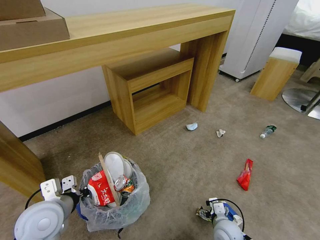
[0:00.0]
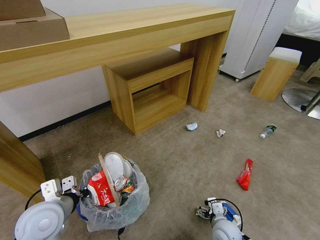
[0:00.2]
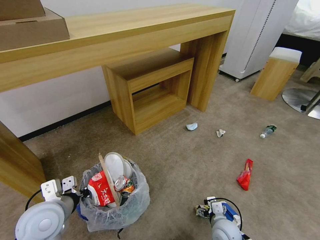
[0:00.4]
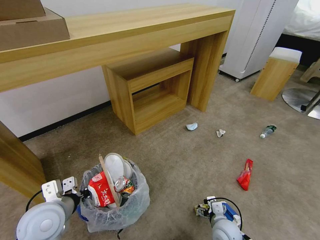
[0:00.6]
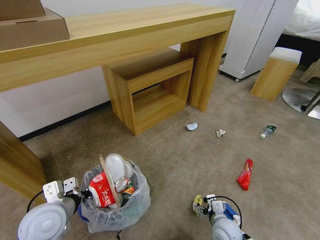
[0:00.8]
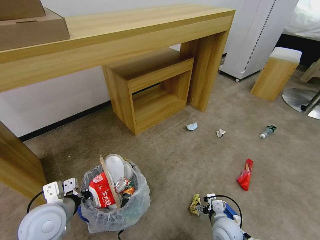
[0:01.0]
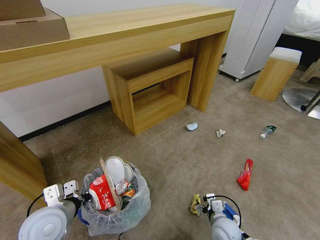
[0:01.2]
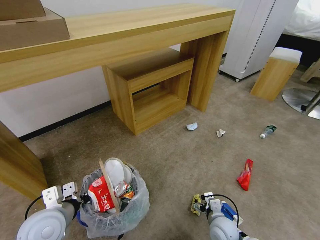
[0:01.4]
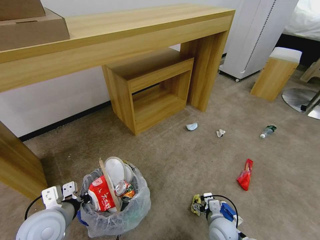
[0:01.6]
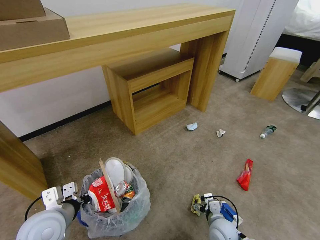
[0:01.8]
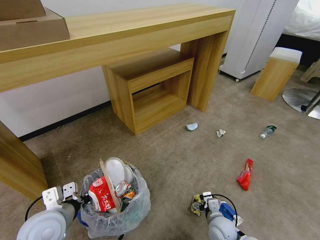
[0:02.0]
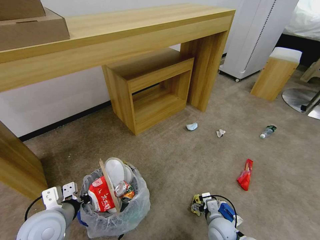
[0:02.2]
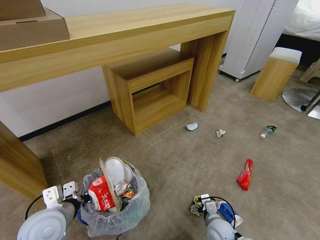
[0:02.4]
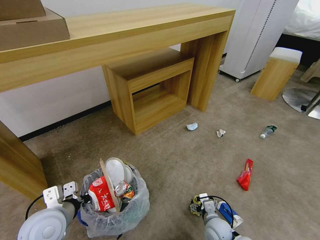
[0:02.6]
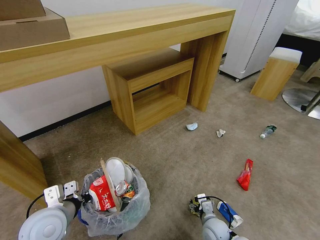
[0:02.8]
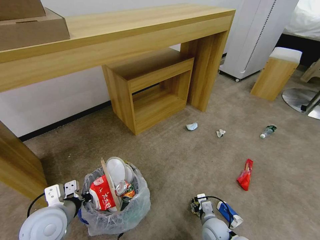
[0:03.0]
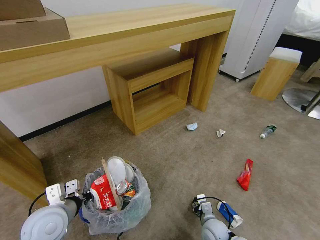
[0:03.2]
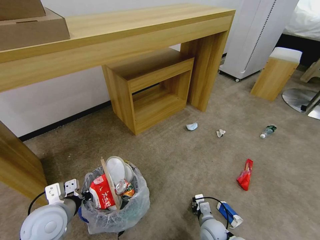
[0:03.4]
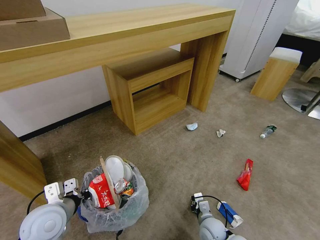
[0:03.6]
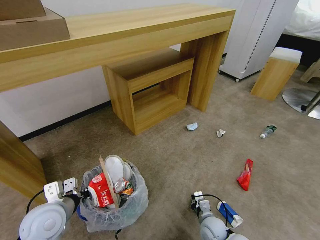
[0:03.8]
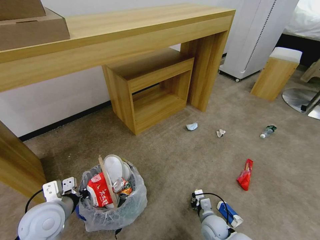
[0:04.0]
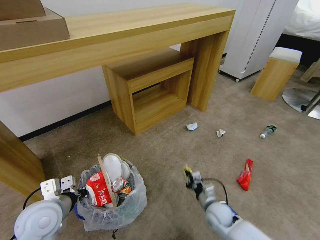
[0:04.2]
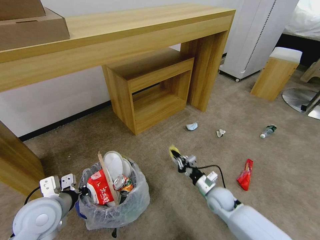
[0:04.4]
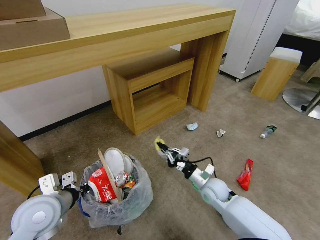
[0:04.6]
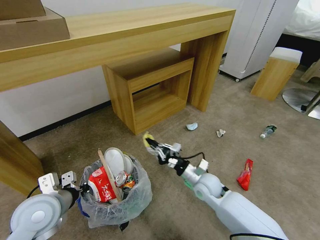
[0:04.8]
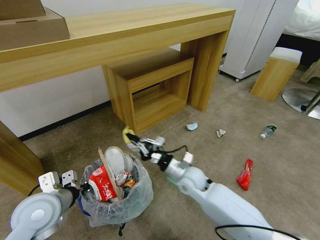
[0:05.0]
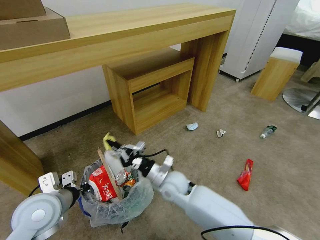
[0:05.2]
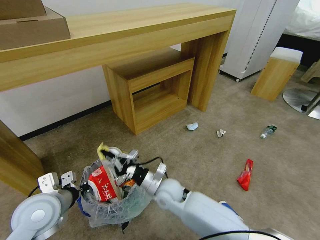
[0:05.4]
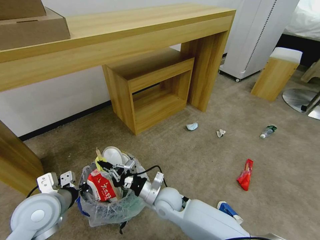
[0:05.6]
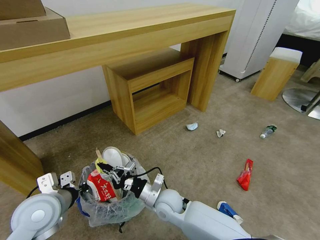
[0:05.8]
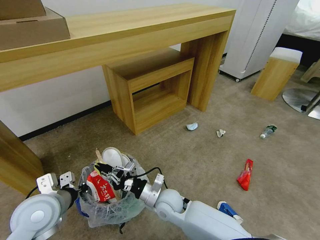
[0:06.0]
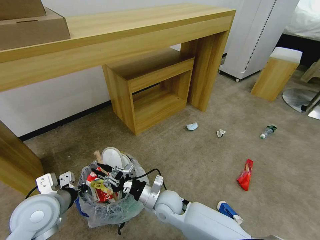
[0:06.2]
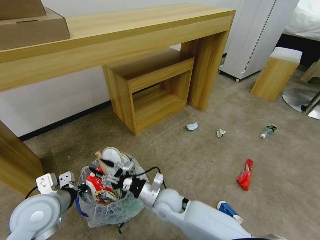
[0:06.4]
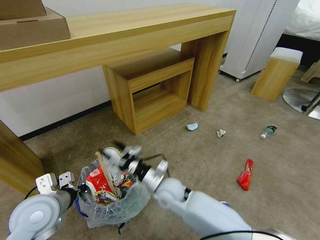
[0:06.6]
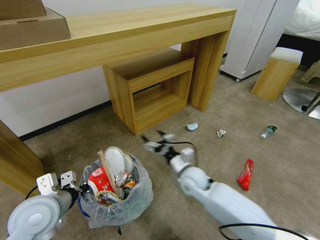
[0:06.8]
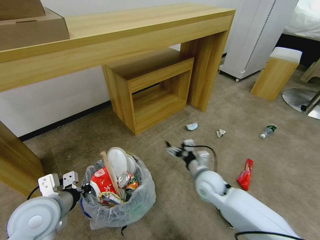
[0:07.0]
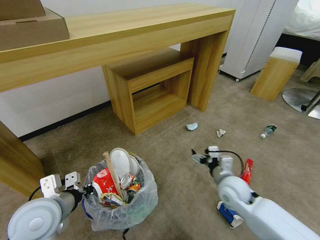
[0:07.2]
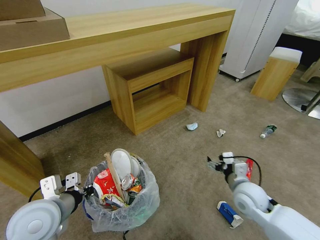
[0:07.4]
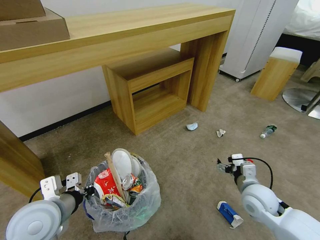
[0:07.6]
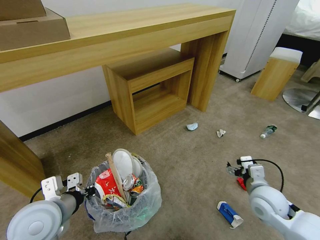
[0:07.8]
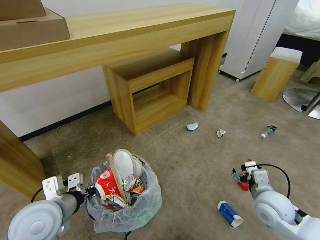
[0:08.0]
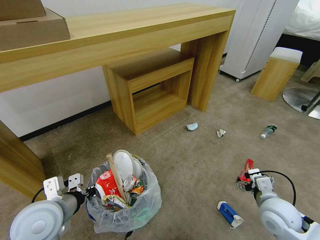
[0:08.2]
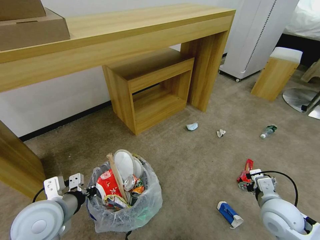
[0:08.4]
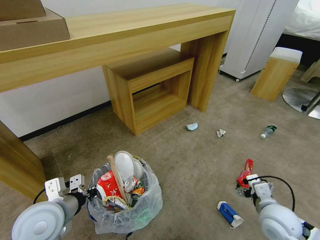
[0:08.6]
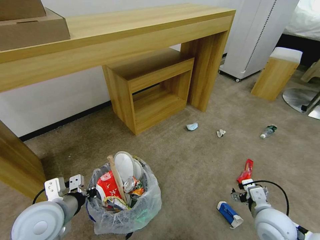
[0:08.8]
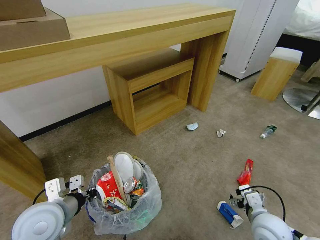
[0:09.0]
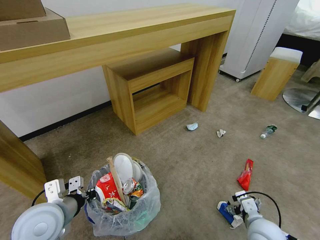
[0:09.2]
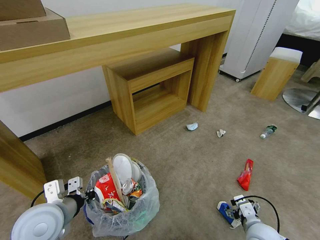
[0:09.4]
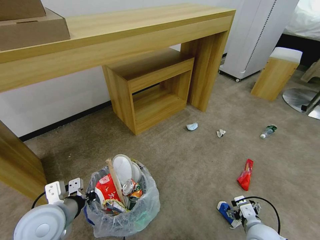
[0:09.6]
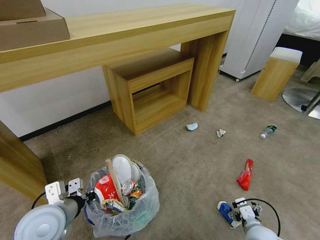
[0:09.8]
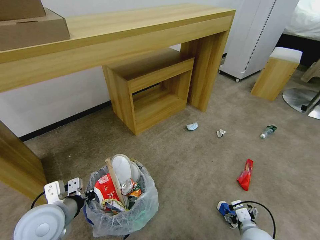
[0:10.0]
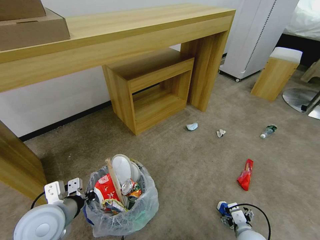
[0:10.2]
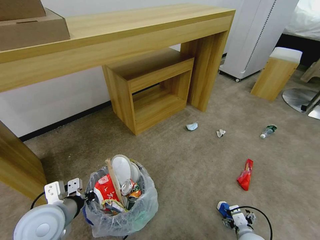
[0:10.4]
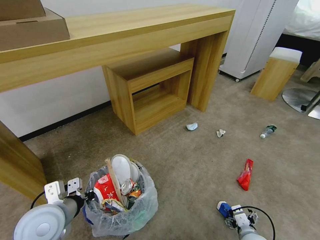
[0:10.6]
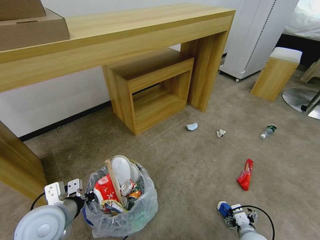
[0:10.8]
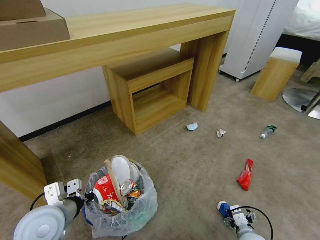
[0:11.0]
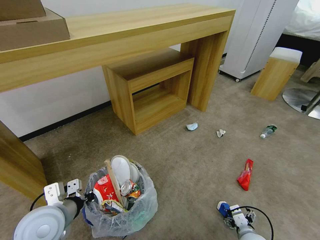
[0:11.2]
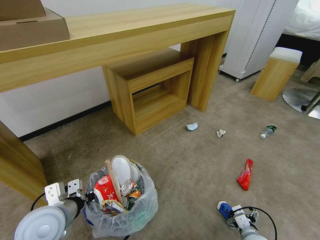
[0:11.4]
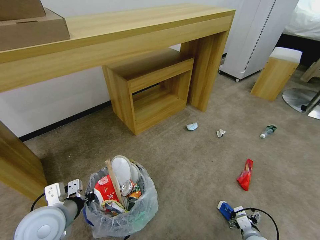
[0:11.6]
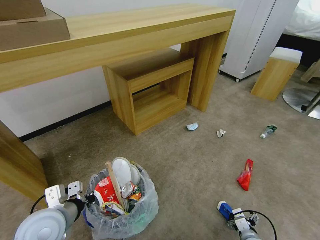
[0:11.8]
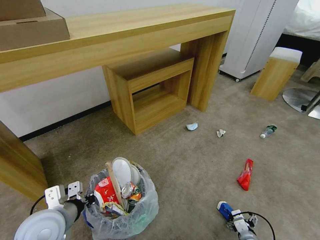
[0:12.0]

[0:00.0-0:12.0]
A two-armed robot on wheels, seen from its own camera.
Task of the whole recording: Pick up the trash bin and place the garbage on the floor into it.
0:00.0 to 0:01.6: The grippers move only a little.
0:01.6 to 0:03.0: The right gripper closes its fingers.
0:03.0 to 0:04.4: The right gripper is displaced forward and upward by about 15 cm, and closes up.
0:04.4 to 0:06.0: The right gripper heads to the left, covering approximately 20 cm.
0:06.0 to 0:07.6: The right gripper shifts about 30 cm to the right, and opens its fingers.
0:07.6 to 0:09.0: The right gripper shifts roughly 10 cm backward.
0:09.0 to 0:10.4: The right gripper travels downward by approximately 10 cm.
0:10.4 to 0:12.0: The right gripper travels downward by some 5 cm.

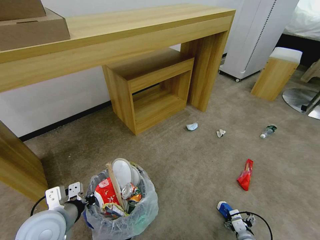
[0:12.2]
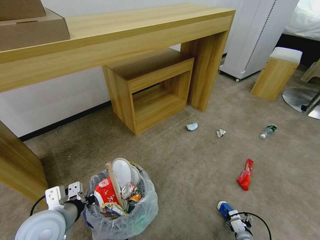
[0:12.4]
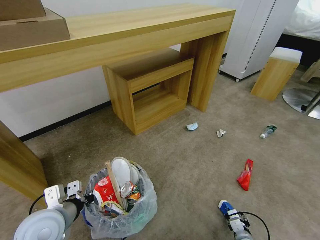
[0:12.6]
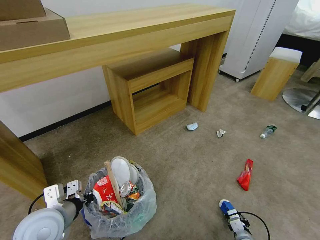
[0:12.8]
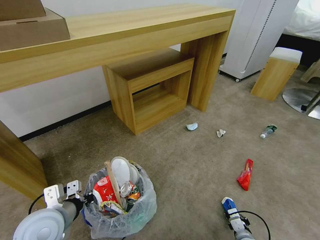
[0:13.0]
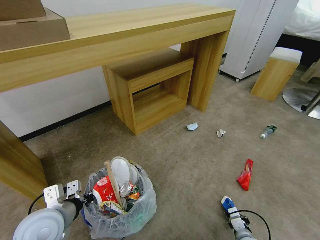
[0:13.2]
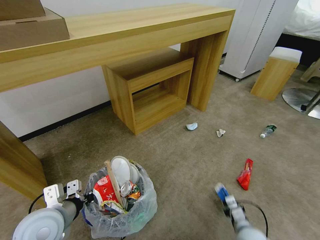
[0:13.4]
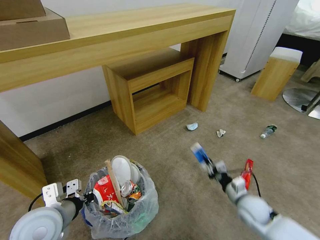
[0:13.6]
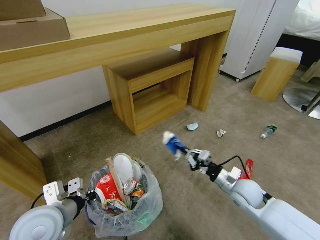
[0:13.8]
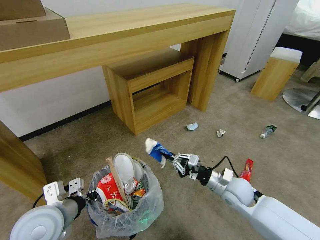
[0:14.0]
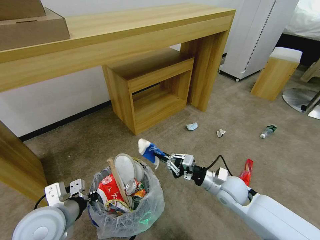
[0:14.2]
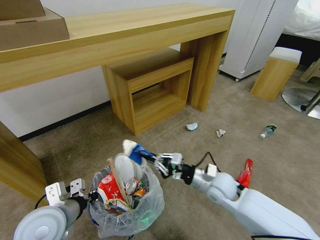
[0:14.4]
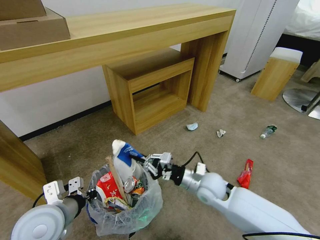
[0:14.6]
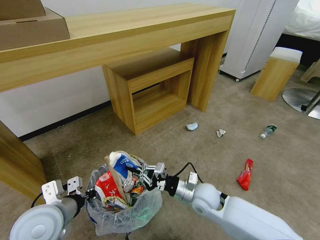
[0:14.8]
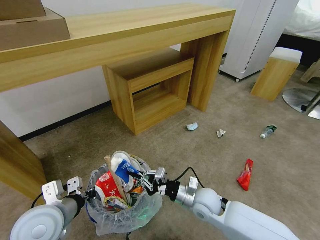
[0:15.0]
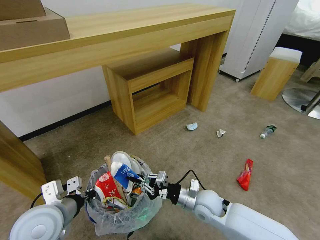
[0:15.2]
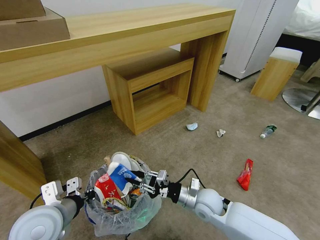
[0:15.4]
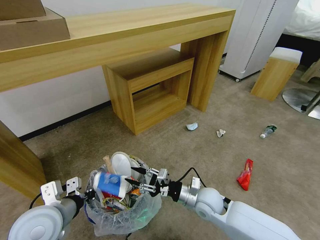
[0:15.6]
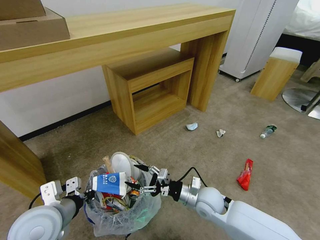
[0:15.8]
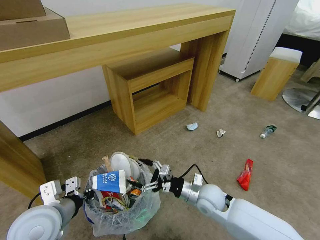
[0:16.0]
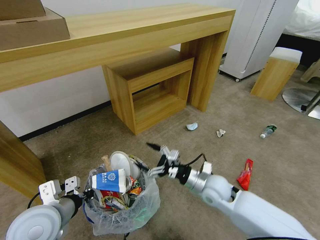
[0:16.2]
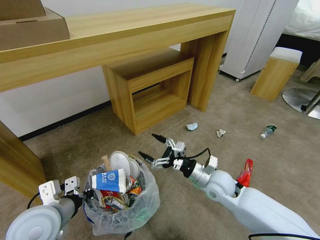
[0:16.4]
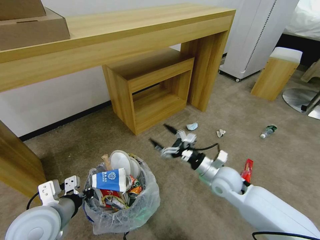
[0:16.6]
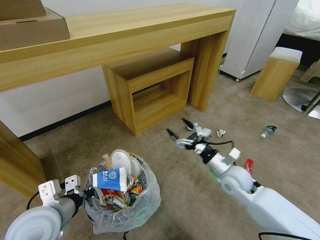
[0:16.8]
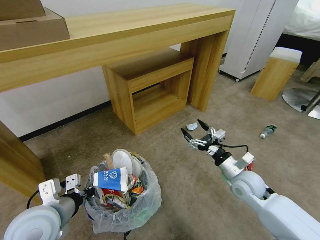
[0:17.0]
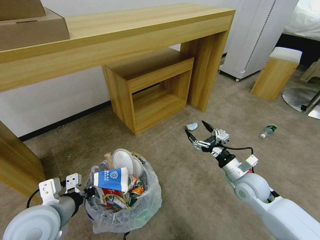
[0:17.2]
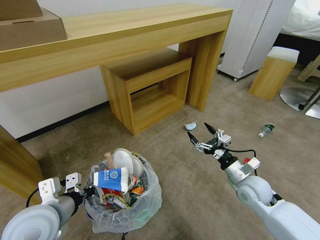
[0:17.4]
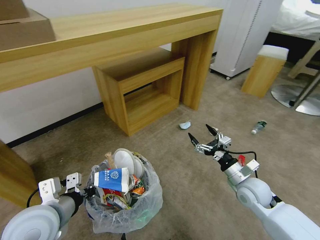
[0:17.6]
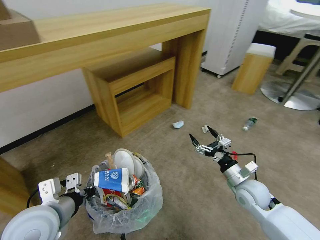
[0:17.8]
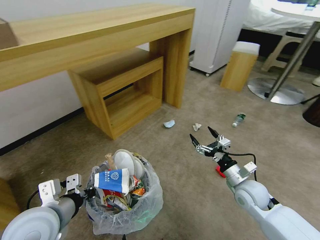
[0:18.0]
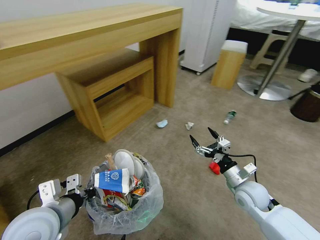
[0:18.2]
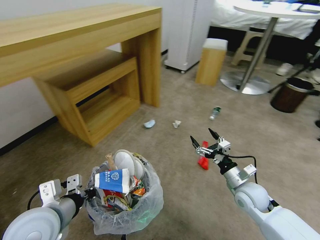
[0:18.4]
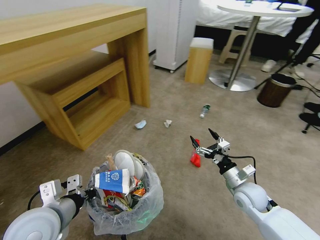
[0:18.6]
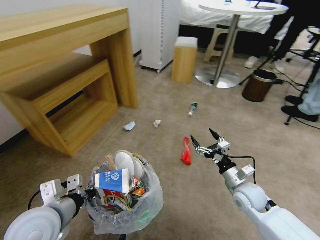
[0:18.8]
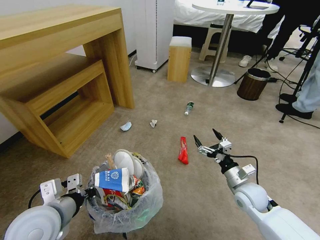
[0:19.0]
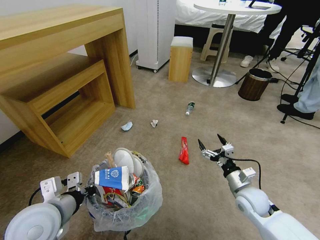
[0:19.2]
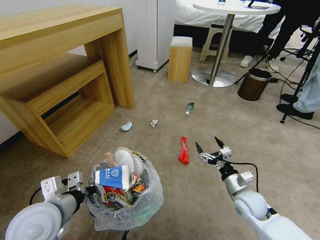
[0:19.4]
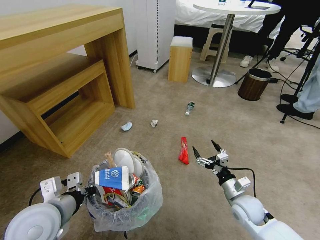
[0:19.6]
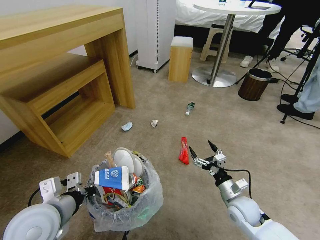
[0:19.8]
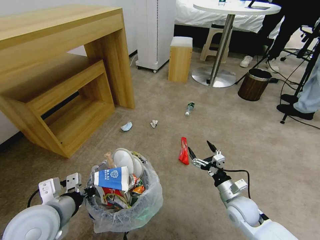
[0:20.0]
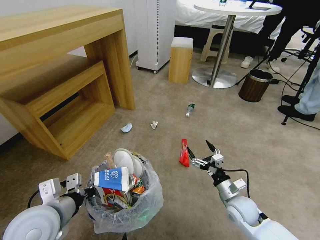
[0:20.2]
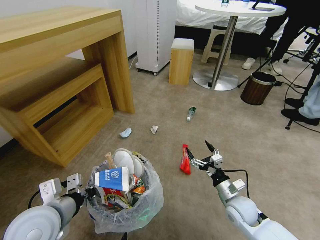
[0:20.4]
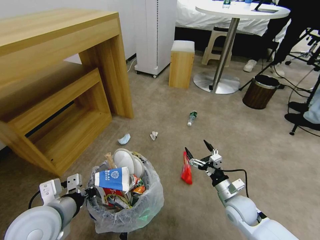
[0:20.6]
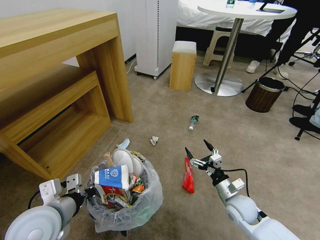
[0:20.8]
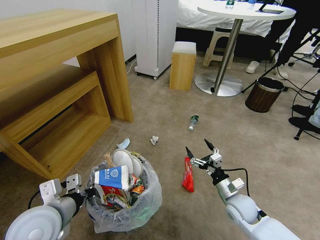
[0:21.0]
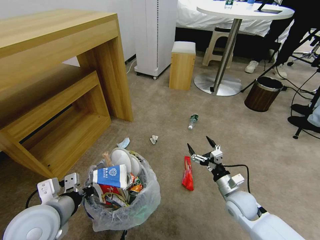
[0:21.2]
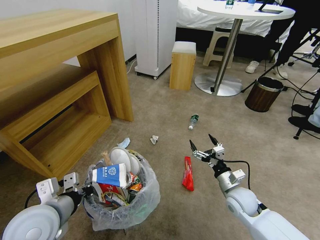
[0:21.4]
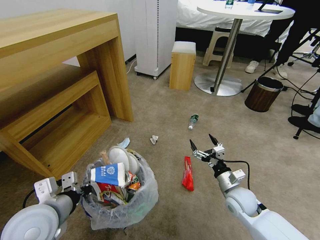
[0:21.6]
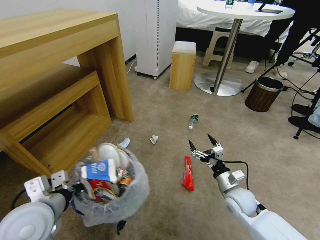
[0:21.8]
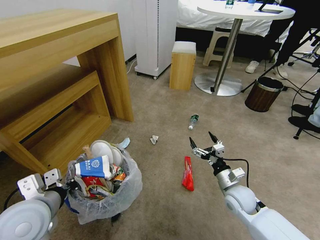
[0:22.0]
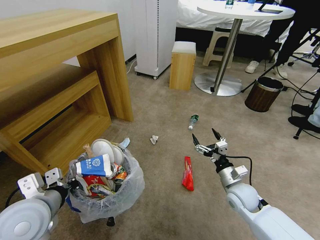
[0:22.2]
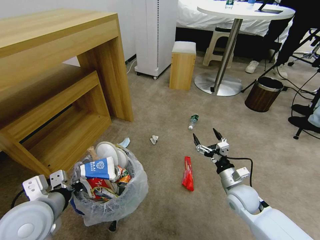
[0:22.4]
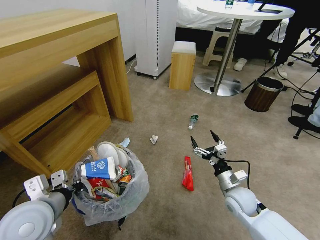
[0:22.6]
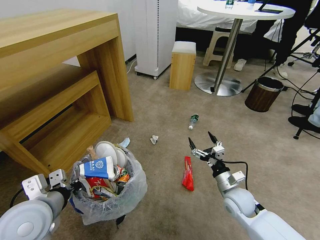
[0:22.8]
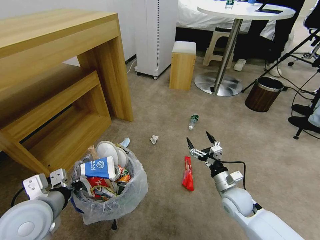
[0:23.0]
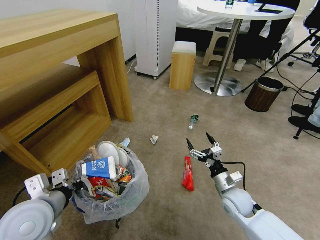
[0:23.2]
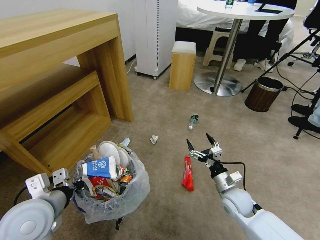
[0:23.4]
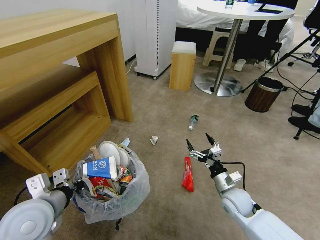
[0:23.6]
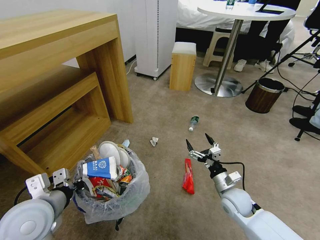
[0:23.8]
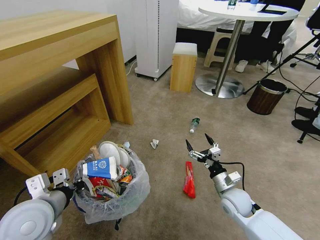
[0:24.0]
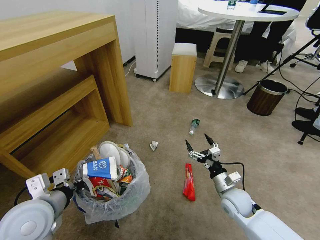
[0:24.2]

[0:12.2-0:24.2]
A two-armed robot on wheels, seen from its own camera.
Task of the whole recording: Pick up the trash bin and place the garbage on the floor into it.
0:12.2 to 0:13.8: The right gripper moves upward and forward, roughly 20 cm, and closes up.
0:13.8 to 0:15.2: The right gripper moves to the left, some 15 cm.
0:15.2 to 0:16.6: The right gripper is displaced upward and to the right by approximately 10 cm, and opens its fingers.
0:16.6 to 0:18.2: The right gripper travels to the right by some 10 cm.
0:18.2 to 0:19.8: The right gripper moves downward, about 5 cm.
0:21.2 to 0:24.2: There are only small adjustments of the grippers.
